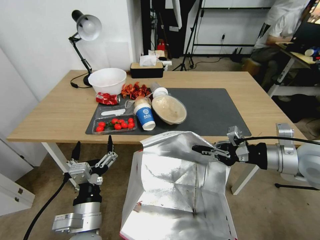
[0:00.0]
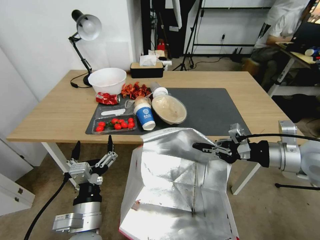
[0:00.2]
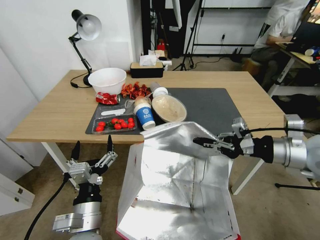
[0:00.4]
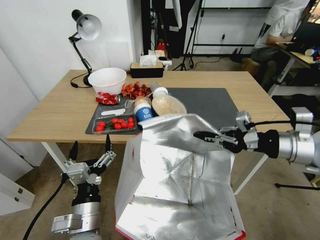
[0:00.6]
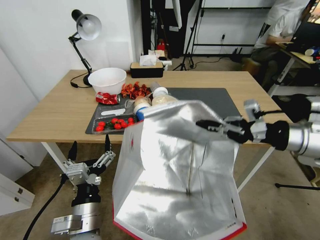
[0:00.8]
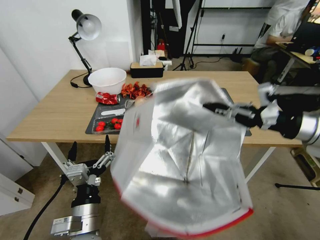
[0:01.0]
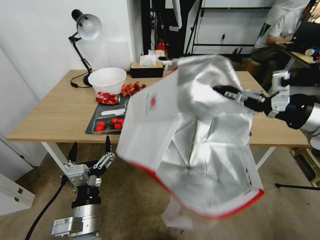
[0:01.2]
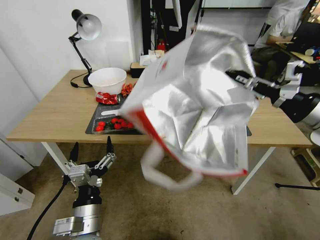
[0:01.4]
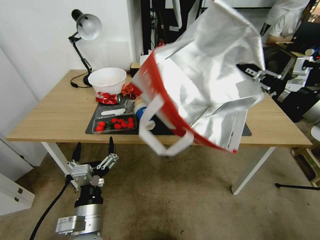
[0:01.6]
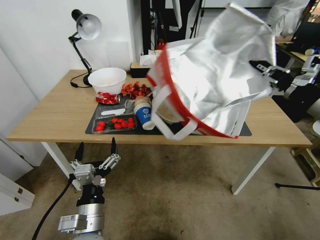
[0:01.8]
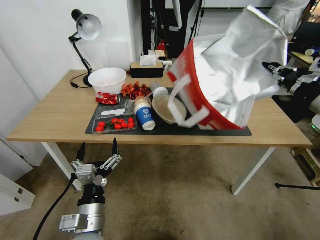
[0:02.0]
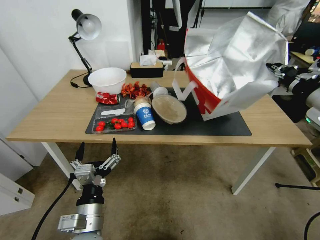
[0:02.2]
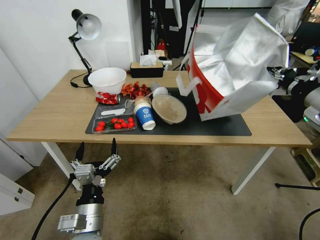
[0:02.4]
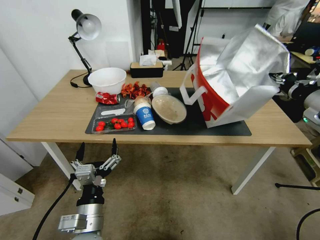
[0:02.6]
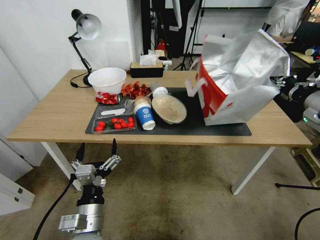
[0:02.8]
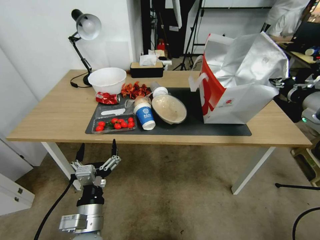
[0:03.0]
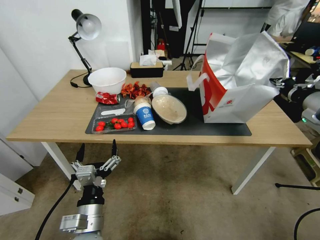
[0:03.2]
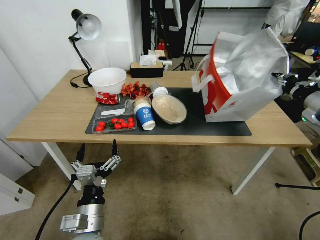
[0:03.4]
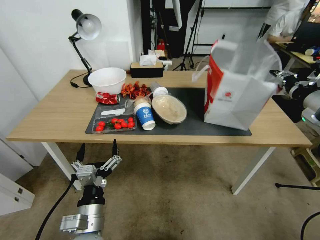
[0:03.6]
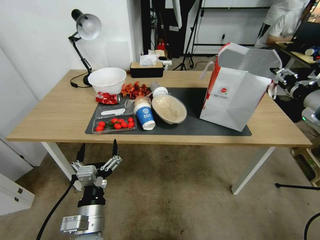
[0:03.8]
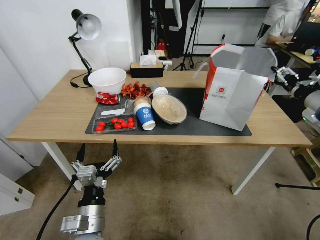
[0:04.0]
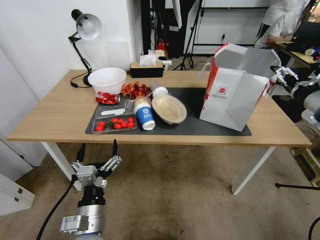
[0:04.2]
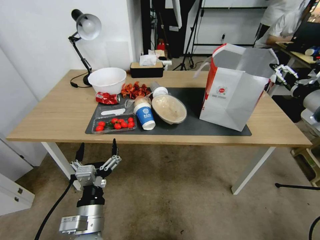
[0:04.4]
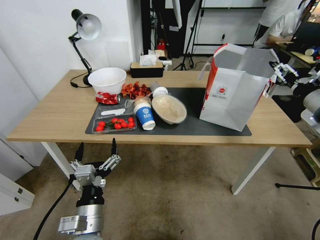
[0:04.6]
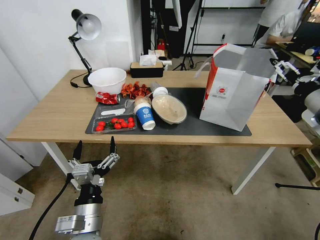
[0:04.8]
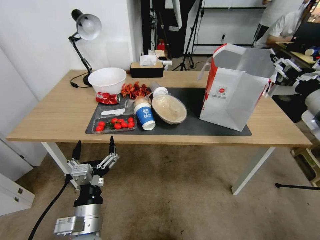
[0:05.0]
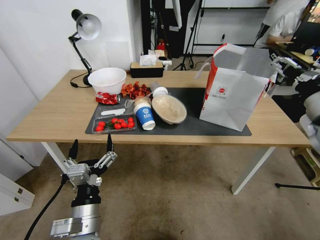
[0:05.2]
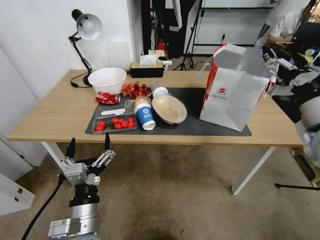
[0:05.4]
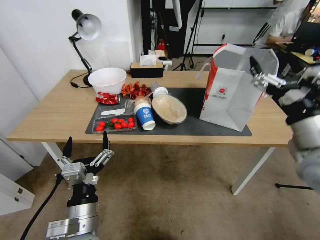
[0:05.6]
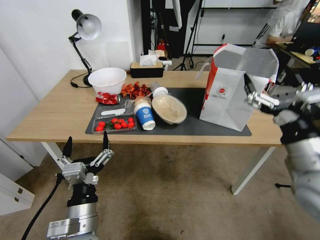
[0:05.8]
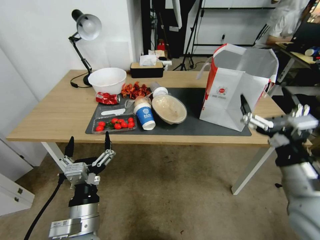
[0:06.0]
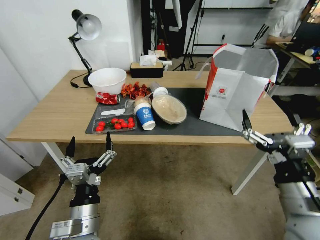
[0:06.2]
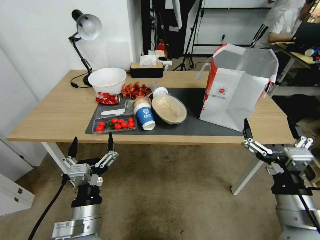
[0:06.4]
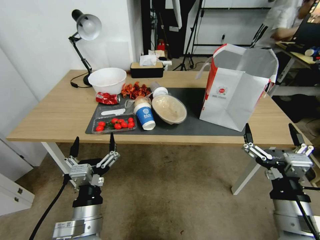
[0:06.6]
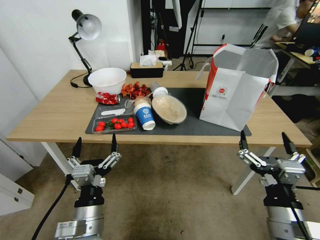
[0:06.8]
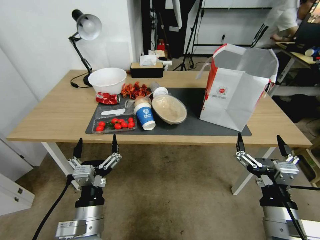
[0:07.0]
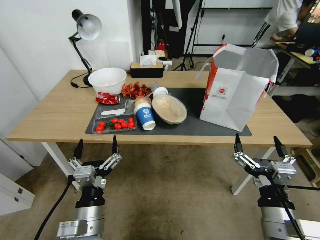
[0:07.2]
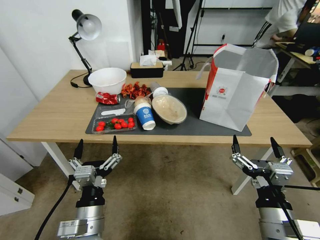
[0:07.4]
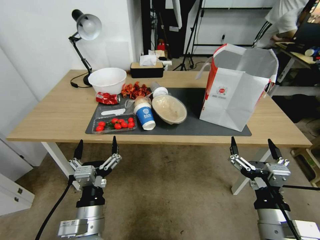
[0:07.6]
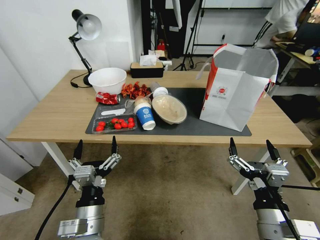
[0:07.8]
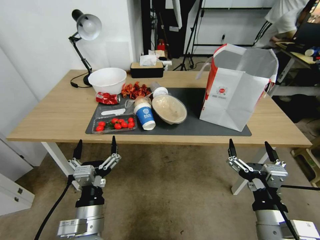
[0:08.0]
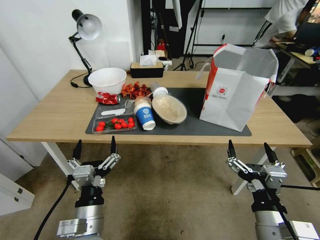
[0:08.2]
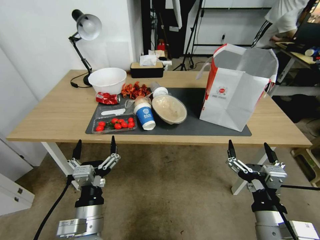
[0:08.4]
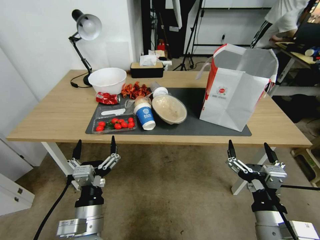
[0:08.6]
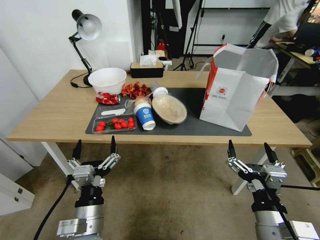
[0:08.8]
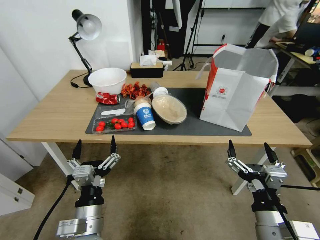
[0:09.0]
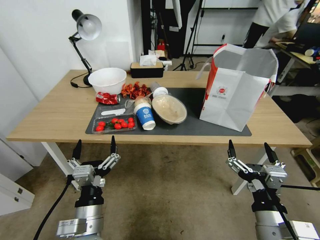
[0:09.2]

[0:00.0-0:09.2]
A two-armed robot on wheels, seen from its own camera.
Task of the whole recording: Pick up the food delivery bag from the floor and place it on the table.
0:00.0 to 0:01.6: The right gripper is displaced upward by about 10 cm.
0:01.6 to 0:03.0: The right gripper is displaced forward by roughly 5 cm.
0:03.0 to 0:04.6: The right gripper opens its fingers.
0:04.6 to 0:06.2: The right gripper shifts roughly 25 cm backward, downward and to the left.
0:06.2 to 0:07.6: The right gripper moves about 10 cm.
0:07.6 to 0:09.2: The two grippers keep their place.

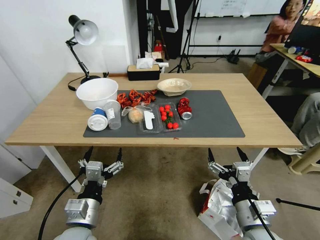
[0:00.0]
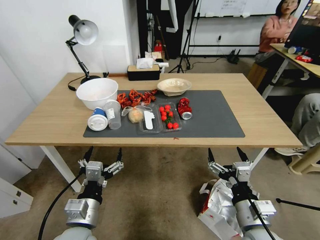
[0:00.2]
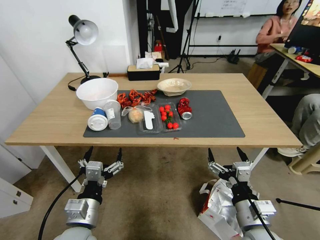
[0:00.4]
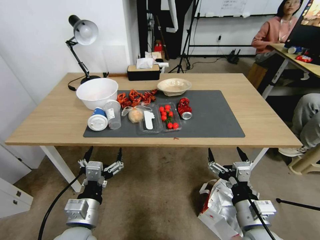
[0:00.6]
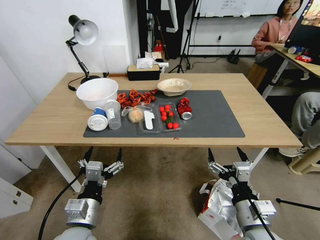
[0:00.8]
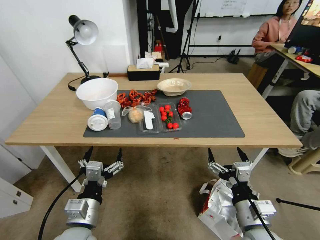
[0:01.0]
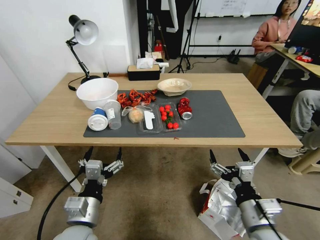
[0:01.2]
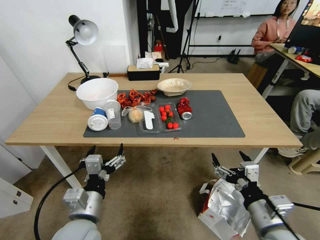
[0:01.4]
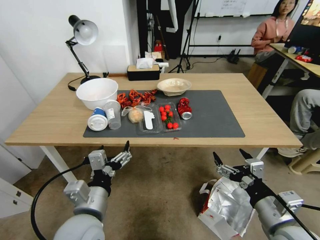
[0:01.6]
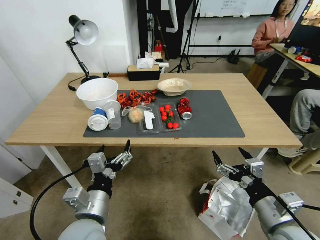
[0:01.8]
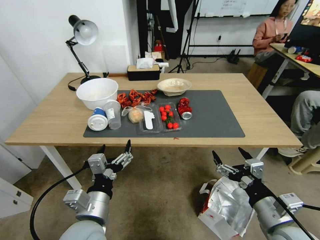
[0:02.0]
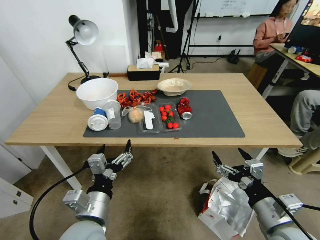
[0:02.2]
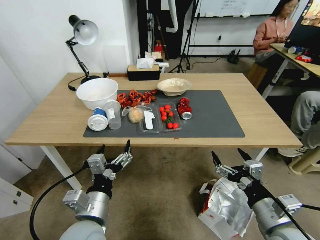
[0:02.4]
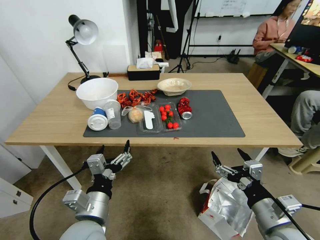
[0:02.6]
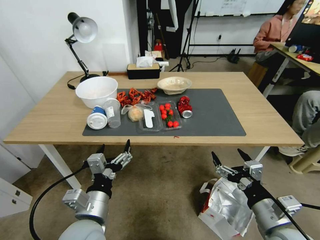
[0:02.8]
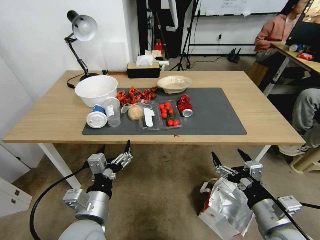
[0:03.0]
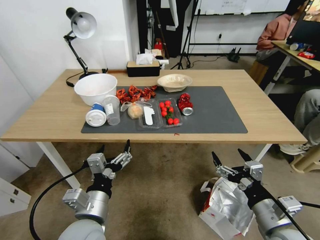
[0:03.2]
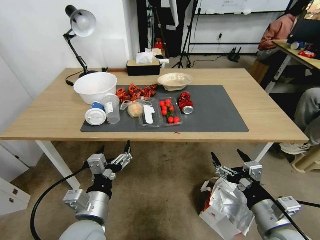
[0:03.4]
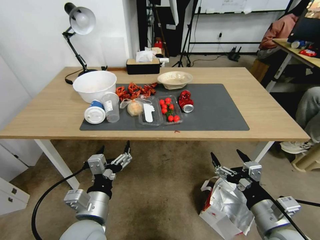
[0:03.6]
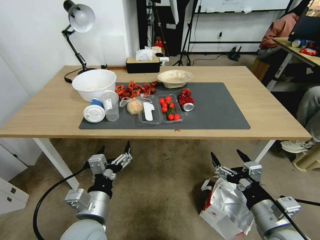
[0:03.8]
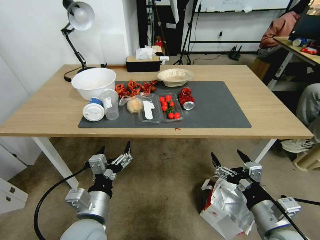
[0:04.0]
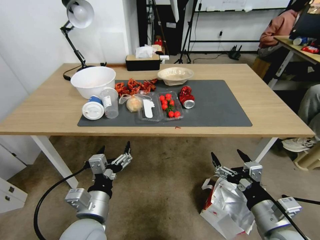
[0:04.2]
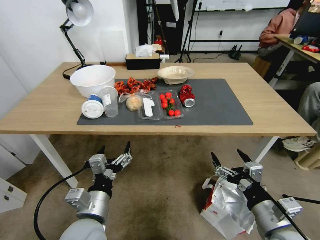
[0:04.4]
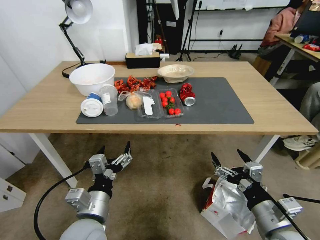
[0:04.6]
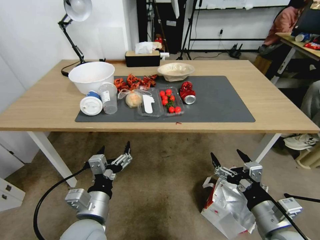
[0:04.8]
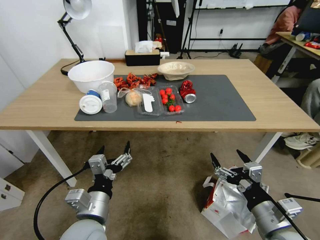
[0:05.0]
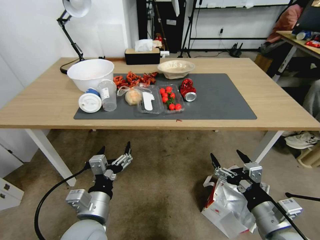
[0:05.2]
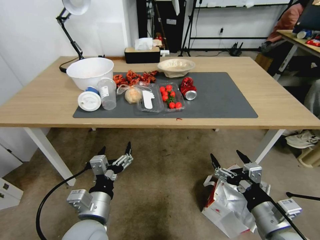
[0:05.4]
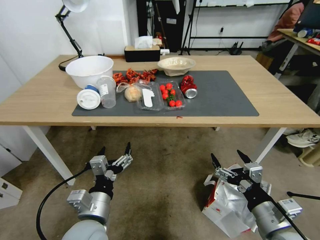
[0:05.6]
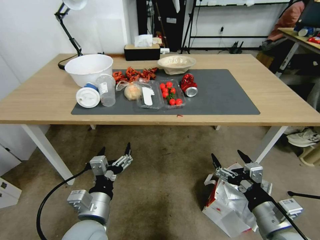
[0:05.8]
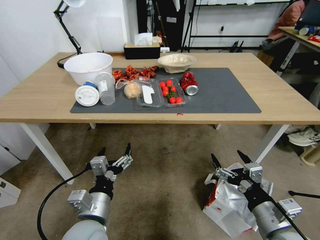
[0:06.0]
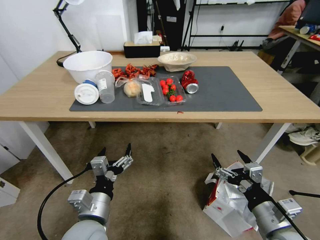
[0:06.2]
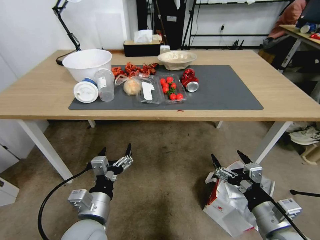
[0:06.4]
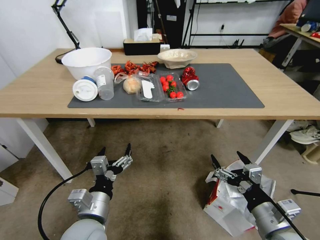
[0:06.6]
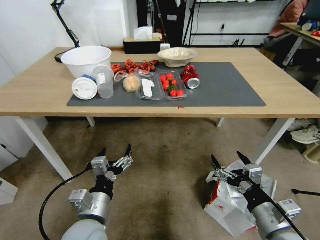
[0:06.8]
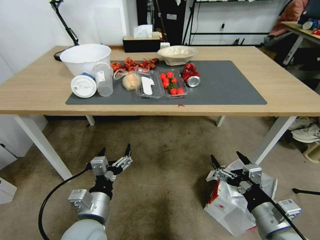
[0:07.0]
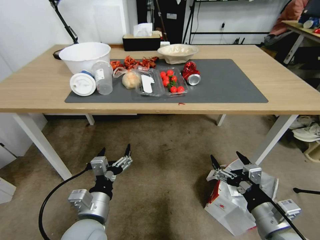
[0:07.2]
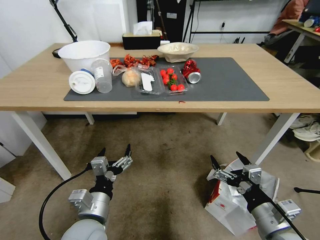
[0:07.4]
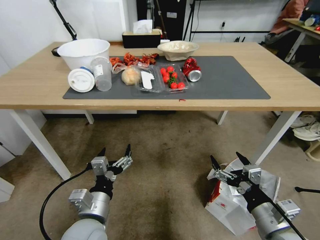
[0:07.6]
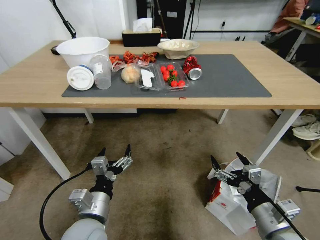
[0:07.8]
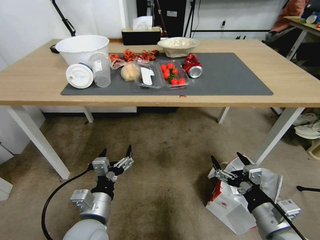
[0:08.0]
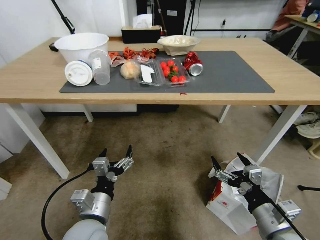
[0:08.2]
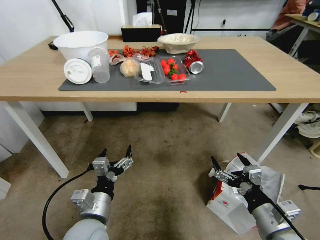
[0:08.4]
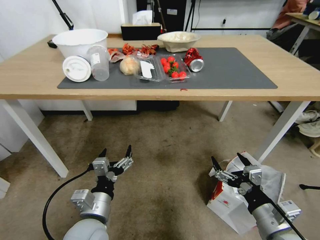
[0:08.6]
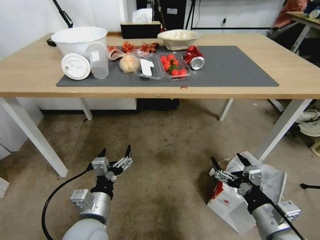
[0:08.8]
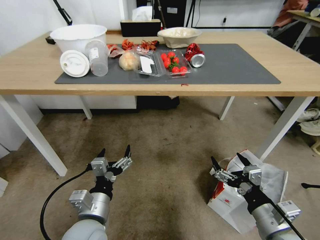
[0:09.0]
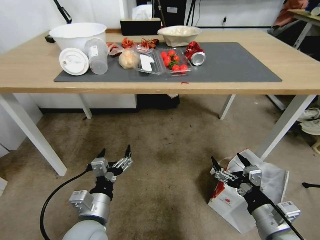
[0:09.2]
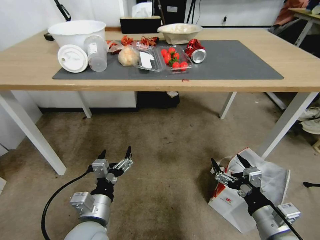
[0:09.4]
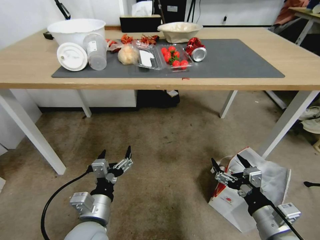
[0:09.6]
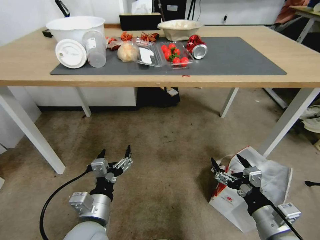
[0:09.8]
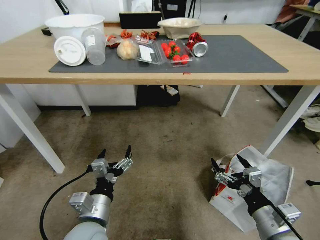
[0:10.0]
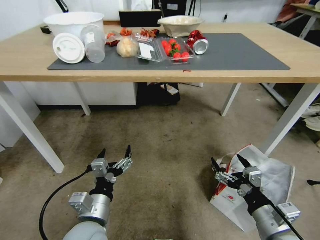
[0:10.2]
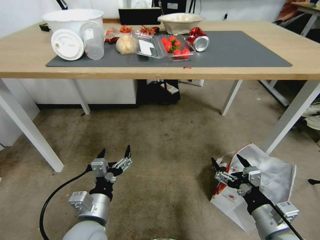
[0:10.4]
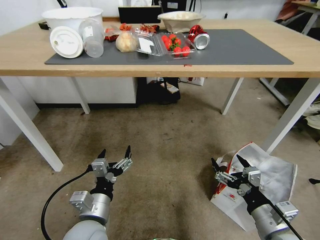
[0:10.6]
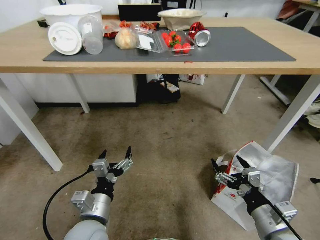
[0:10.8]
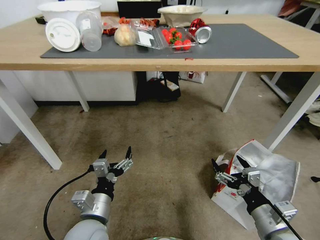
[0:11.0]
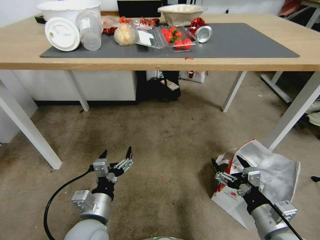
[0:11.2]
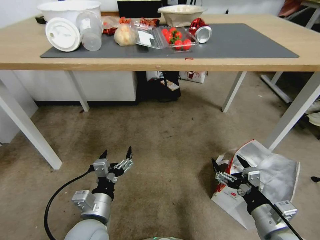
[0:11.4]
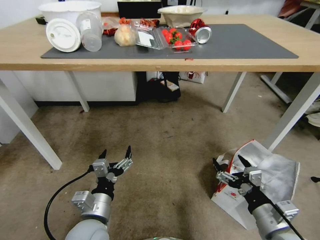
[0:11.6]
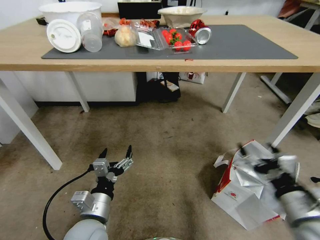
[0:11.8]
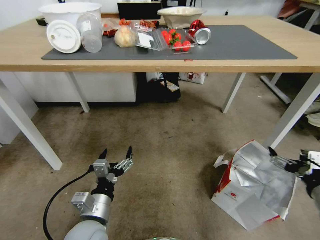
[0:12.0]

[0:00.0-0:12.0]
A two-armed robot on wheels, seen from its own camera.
Task of the whole recording: Pick up the food delivery bag from the floor and place it on the table.
0:10.4 to 0:12.0: The right gripper heads to the right and upward, covering some 15 cm.

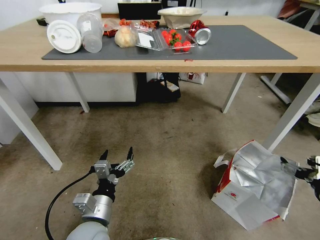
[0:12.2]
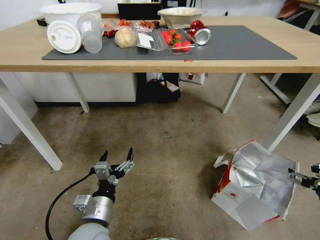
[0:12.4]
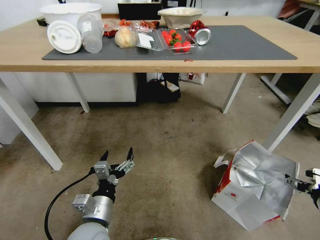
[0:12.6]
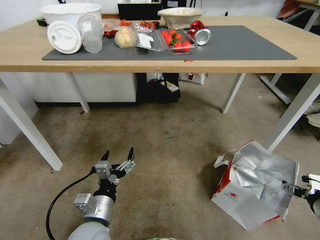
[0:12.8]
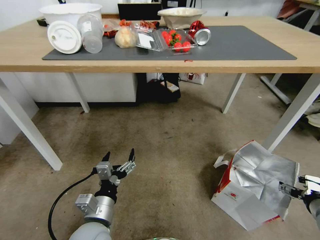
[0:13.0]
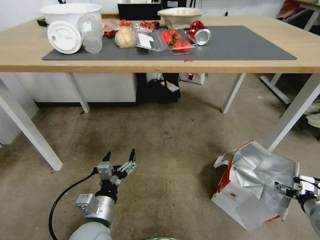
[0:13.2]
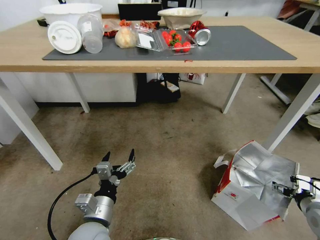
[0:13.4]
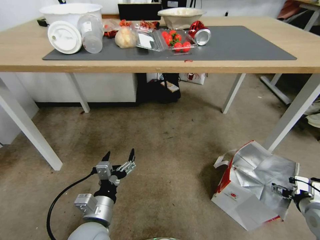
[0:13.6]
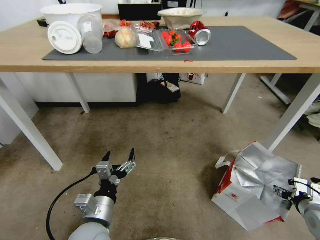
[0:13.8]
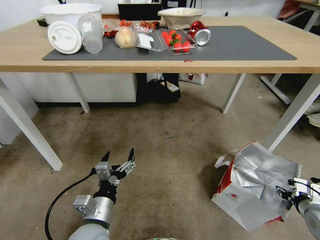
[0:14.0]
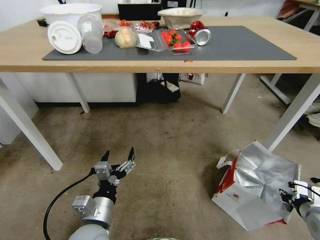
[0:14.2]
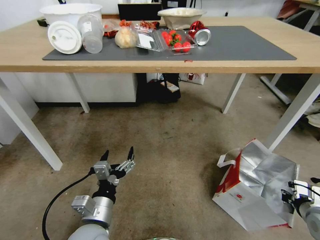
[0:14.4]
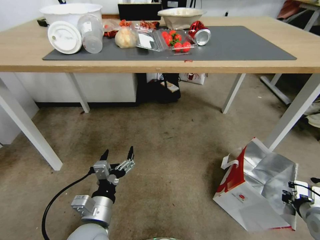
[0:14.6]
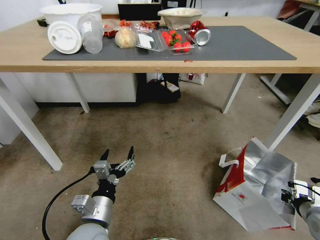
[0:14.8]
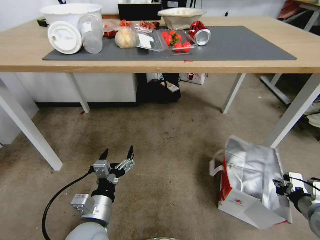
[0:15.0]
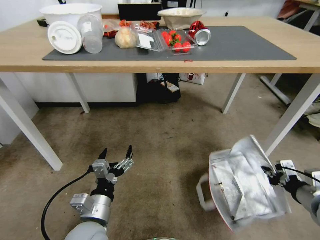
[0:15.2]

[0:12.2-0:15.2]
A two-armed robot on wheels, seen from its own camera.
Task of the whole recording: Pick up the food delivery bag from the floor and place it on the table.
0:12.2 to 0:13.8: The right gripper travels downward by approximately 10 cm.
0:13.8 to 0:15.2: The right gripper heads upward, covering approximately 5 cm, and closes its fingers.
